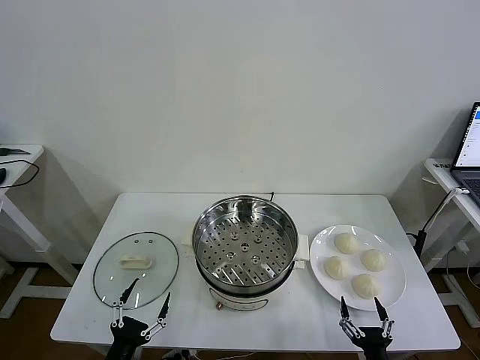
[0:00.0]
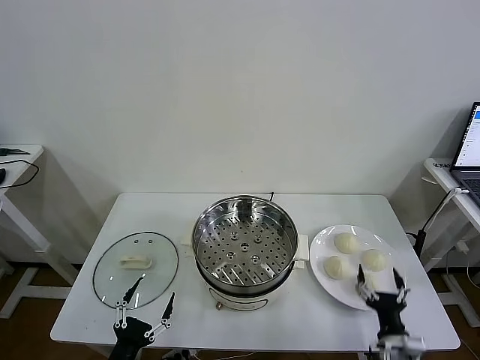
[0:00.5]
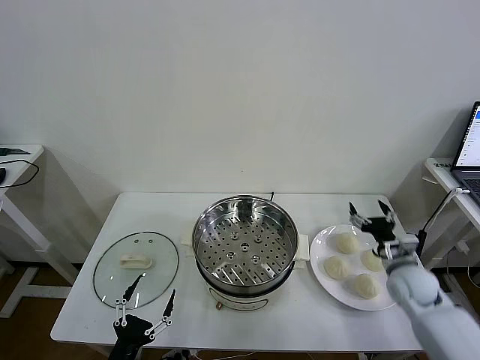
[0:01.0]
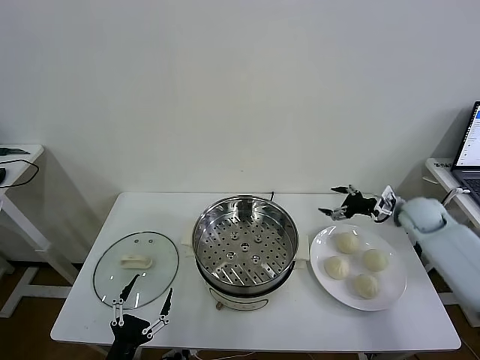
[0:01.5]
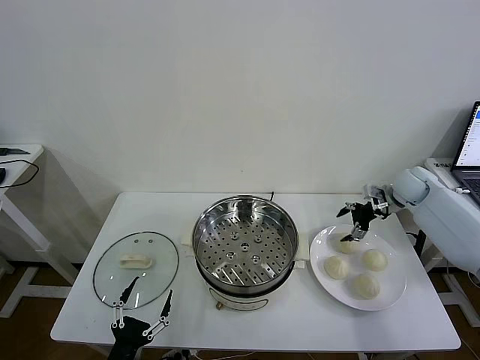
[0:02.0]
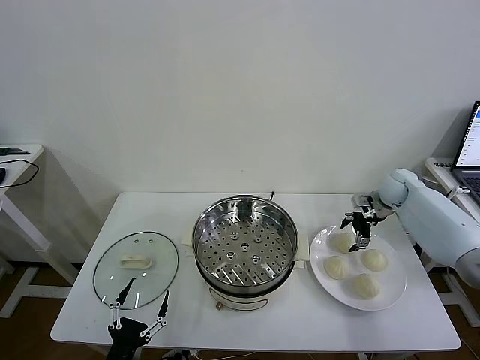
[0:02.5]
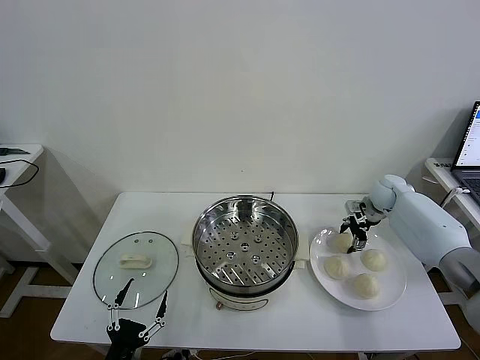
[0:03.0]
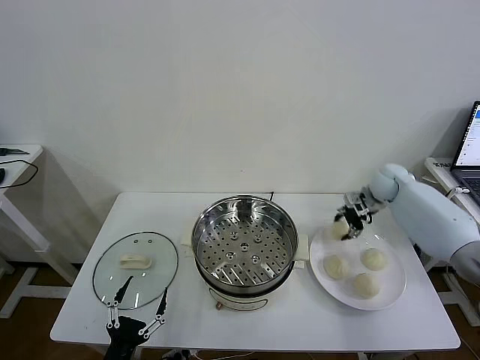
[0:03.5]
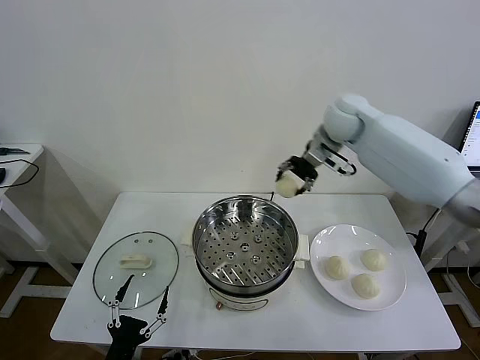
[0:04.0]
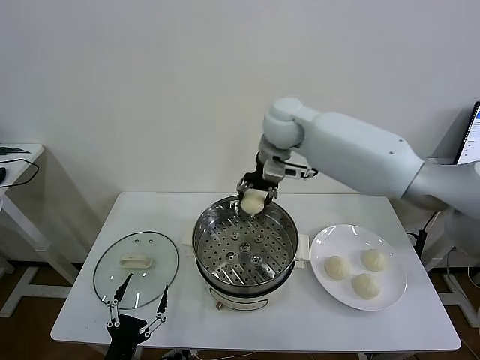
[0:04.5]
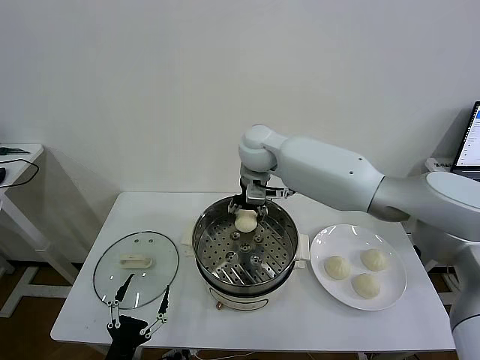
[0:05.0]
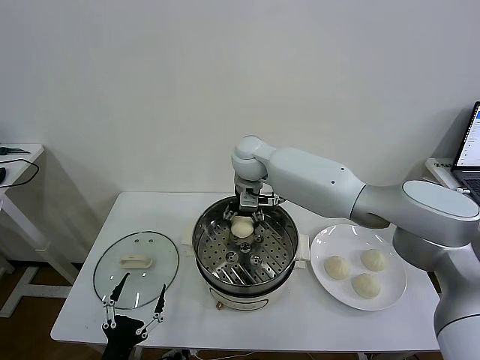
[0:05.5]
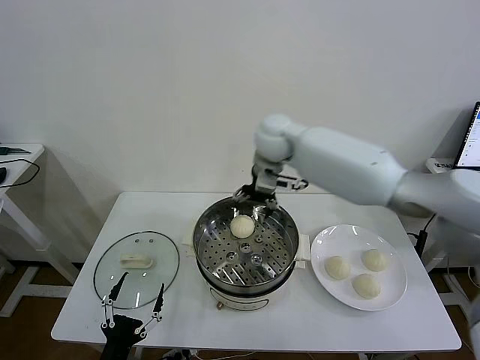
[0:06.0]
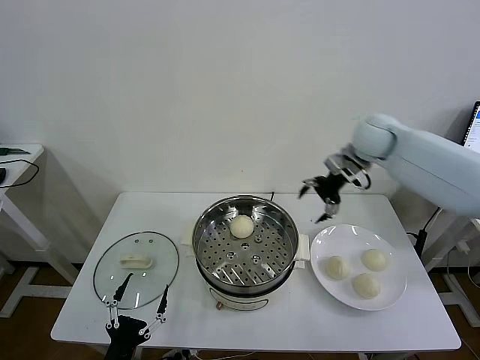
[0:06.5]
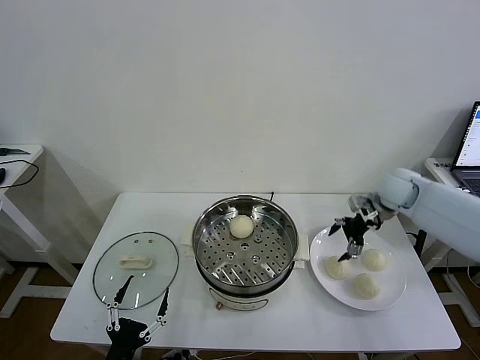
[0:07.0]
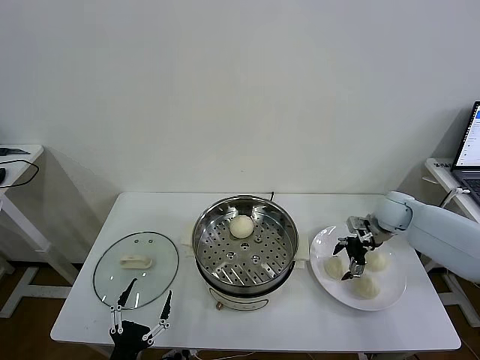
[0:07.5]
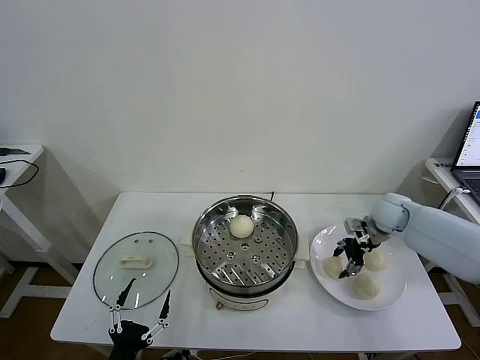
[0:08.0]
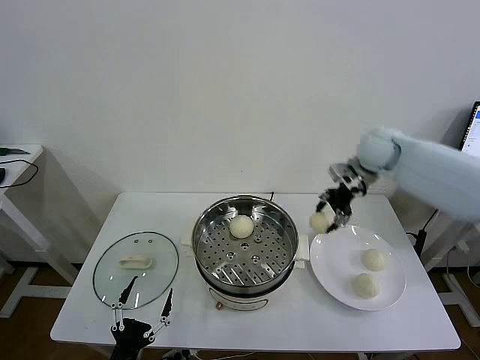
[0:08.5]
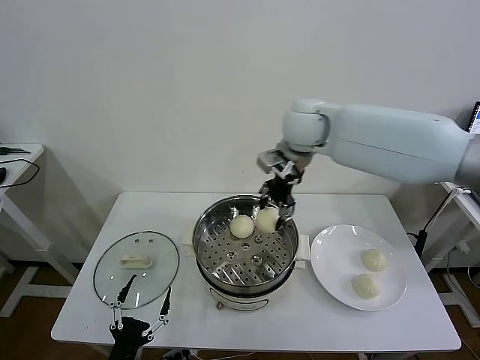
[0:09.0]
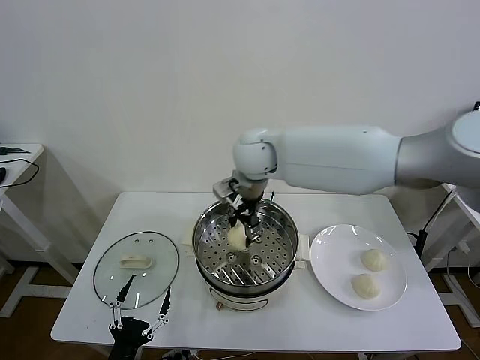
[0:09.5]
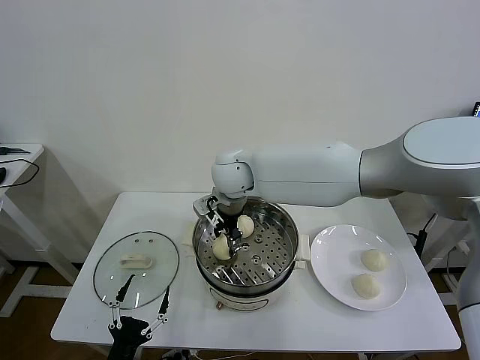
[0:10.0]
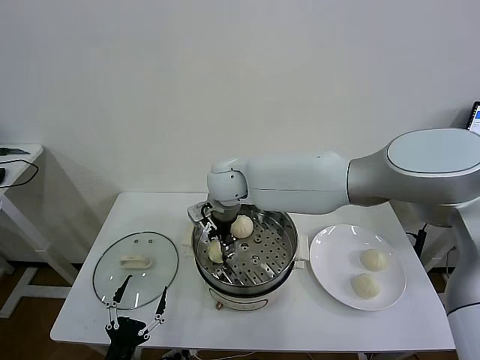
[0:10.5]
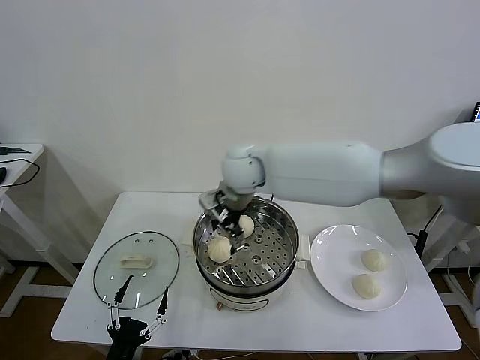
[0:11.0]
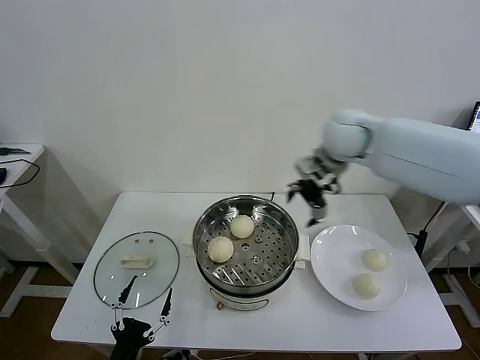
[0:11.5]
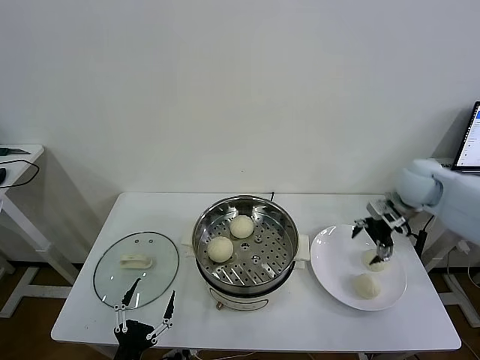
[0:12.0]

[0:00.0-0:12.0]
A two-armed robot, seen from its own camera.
Task of the whole recording: take steamed baozi put them in steamer then cover it.
Step, 0:00.0 to 0:03.0: Grasp the baozi in the plate with right gripper.
Step, 0:03.5 to 0:05.5: Place the baozi on the steamer with right gripper.
Step, 0:06.0 to 0:07.5: Grasp the baozi in the plate with right gripper.
Step, 0:08.0 to 0:10.5: Place the baozi on the steamer with right gripper.
0:02.0 to 0:04.0: The right gripper shifts some 35 cm to the left and upward, and closes up.
0:04.0 to 0:06.0: The right gripper travels to the left and back again, approximately 15 cm each way, and opens up.
0:06.0 to 0:08.0: The right gripper heads to the right and downward, covering some 30 cm, and closes.
0:08.0 to 0:10.0: The right gripper goes some 40 cm to the left.
0:10.0 to 0:12.0: The right gripper goes some 40 cm to the right, and opens its fingers.

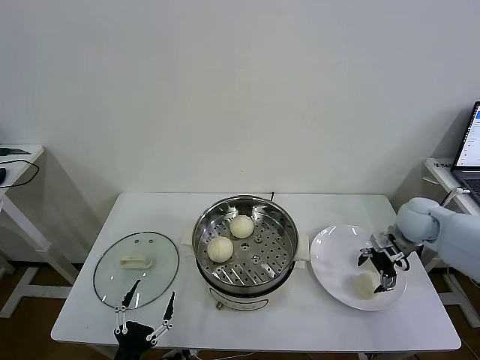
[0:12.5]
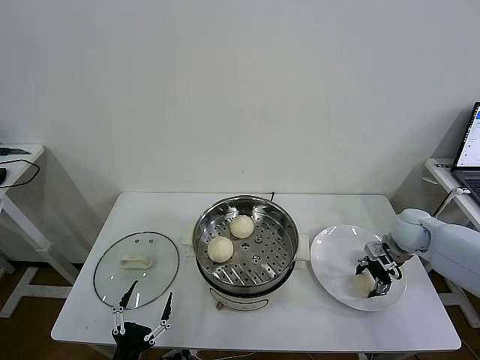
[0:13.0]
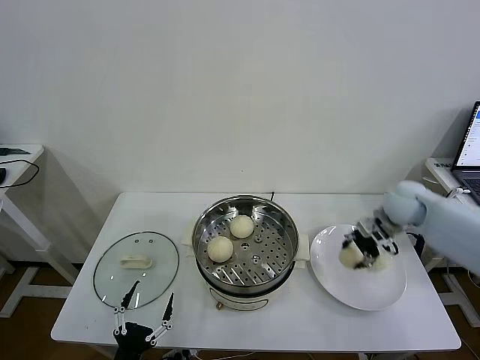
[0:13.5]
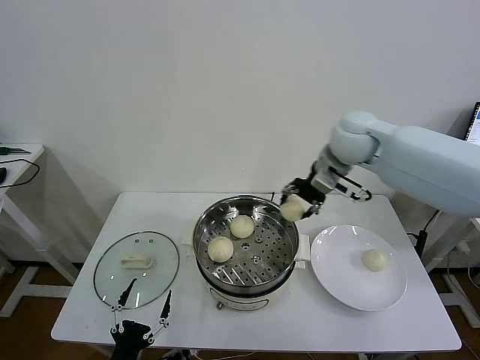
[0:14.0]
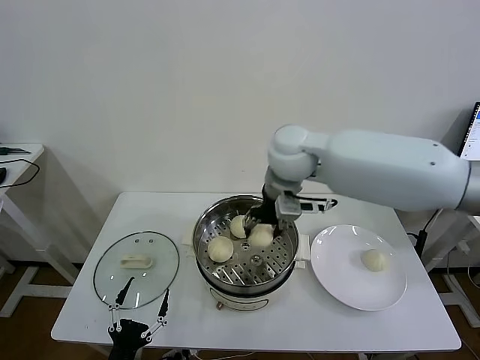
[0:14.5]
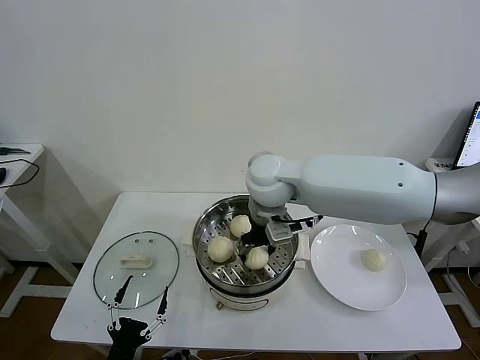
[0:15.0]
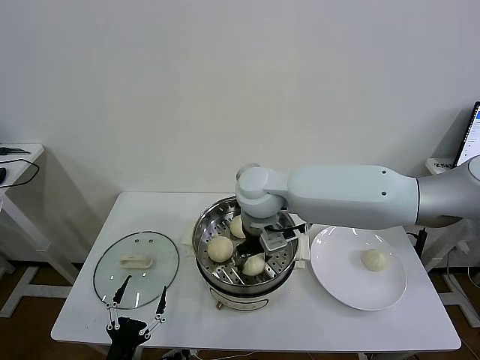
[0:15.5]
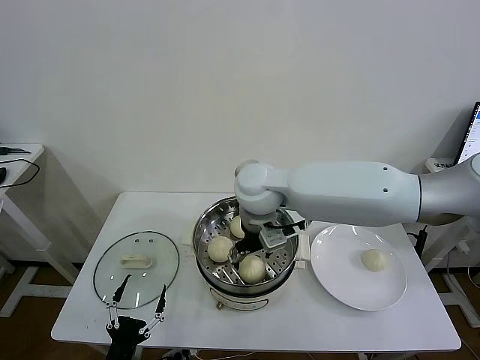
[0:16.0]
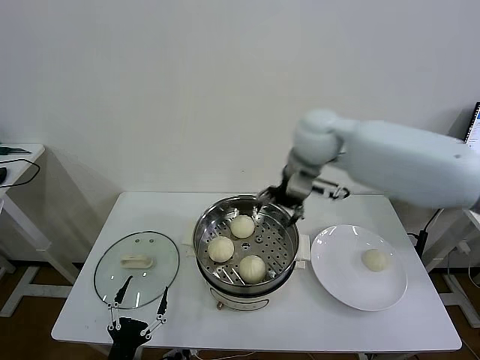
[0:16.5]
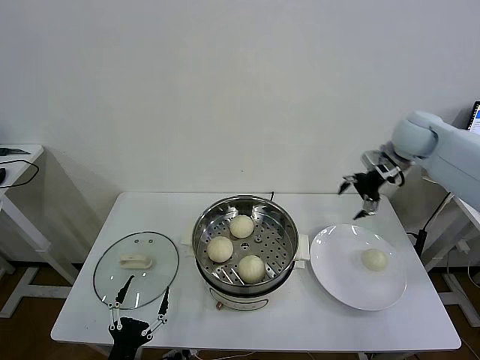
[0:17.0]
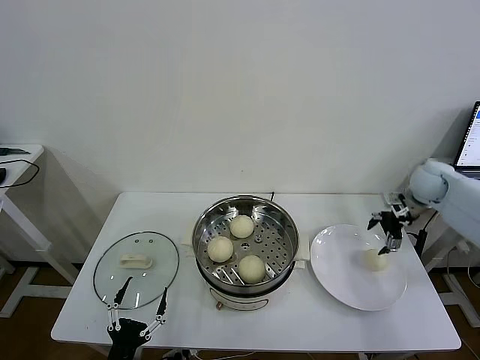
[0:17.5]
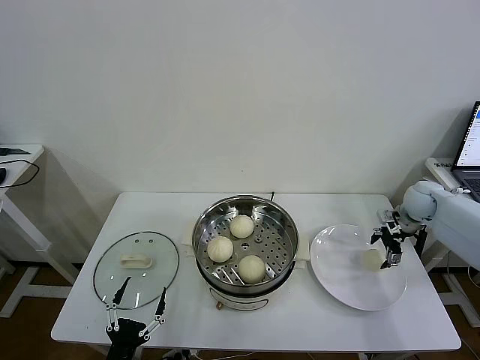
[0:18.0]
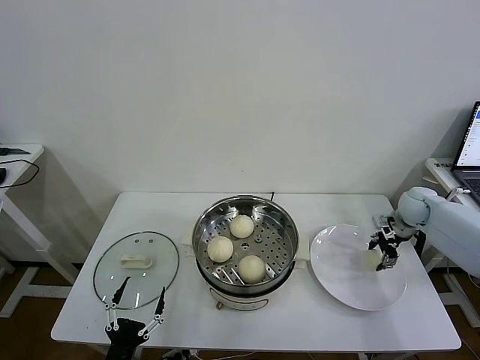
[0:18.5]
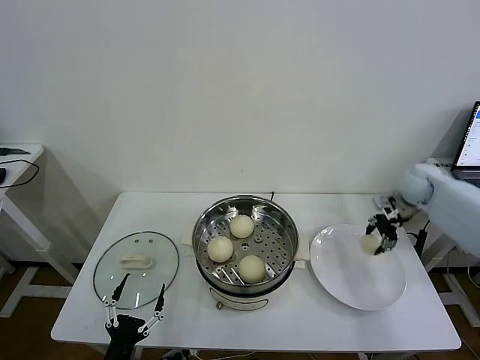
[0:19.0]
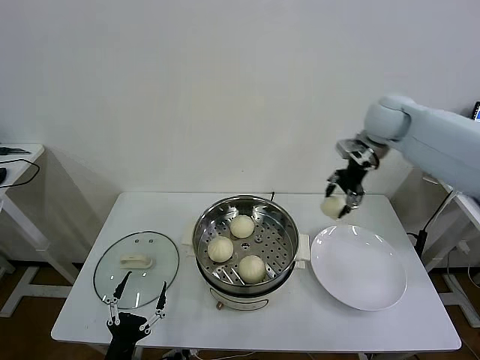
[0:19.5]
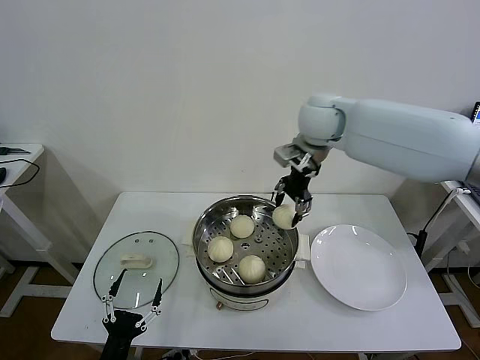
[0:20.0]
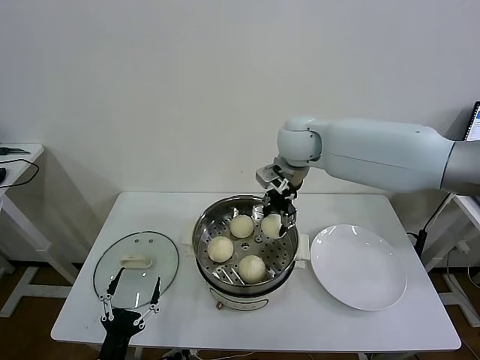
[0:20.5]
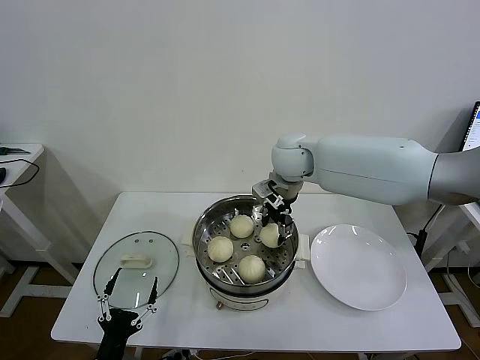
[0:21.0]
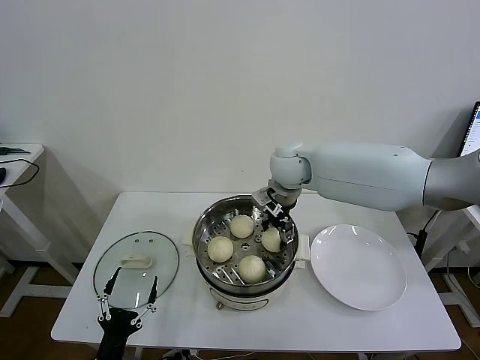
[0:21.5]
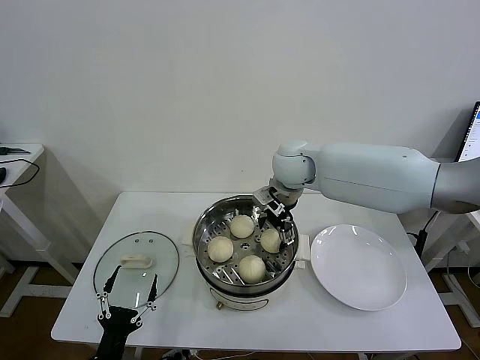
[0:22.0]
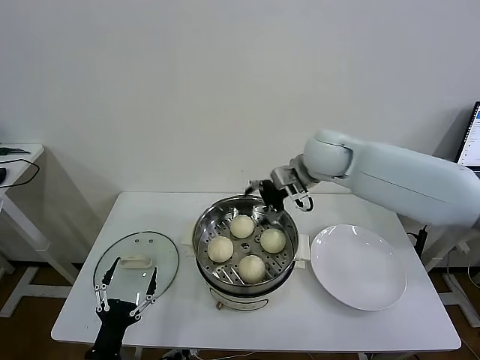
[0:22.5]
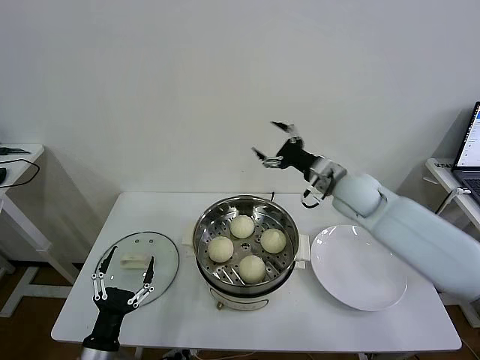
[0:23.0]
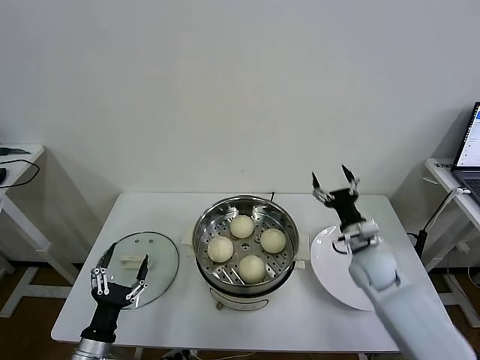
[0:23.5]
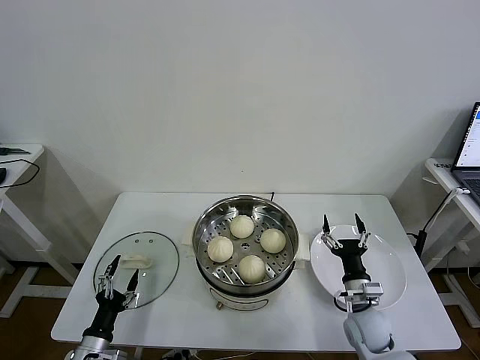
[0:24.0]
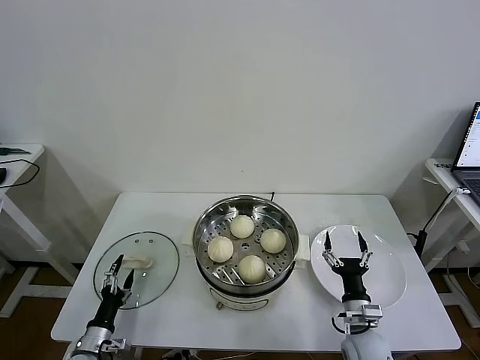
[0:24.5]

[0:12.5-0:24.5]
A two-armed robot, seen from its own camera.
Task of the whole recording: take steamed baozi put them in steamer then cover it.
Step, 0:13.5 to 0:15.5: Place the baozi on the steamer with right gripper.
Step, 0:16.0 to 0:18.5: Grasp the baozi in the plate with right gripper.
Step, 0:19.0 to 0:21.5: Place the baozi on the steamer with right gripper.
0:12.5 to 0:14.5: The right gripper goes roughly 40 cm to the left and upward, and closes up.
0:14.5 to 0:16.5: The right gripper heads to the right and forward, covering roughly 10 cm, and opens up.
0:16.5 to 0:18.5: The right gripper goes roughly 35 cm to the right and downward, and closes up.
0:18.5 to 0:20.5: The right gripper travels to the left and upward by roughly 40 cm.
0:20.5 to 0:22.5: The right gripper shifts roughly 5 cm to the right, and opens up.
0:22.5 to 0:24.5: The left gripper is displaced downward, forward and to the left by about 15 cm. Meanwhile the right gripper goes about 40 cm downward and backward.

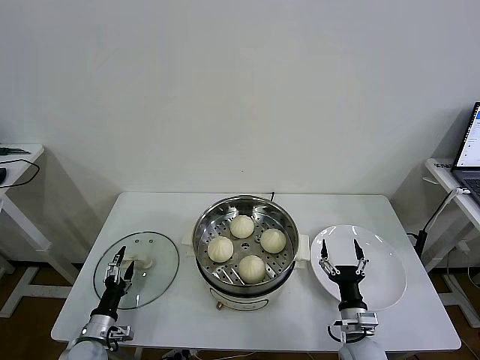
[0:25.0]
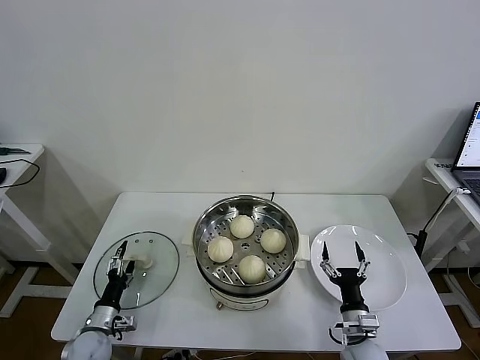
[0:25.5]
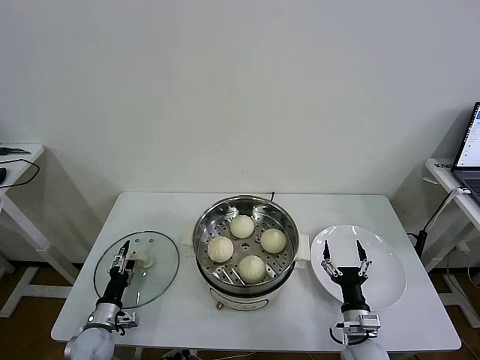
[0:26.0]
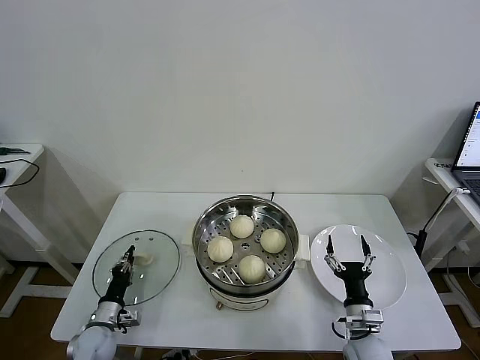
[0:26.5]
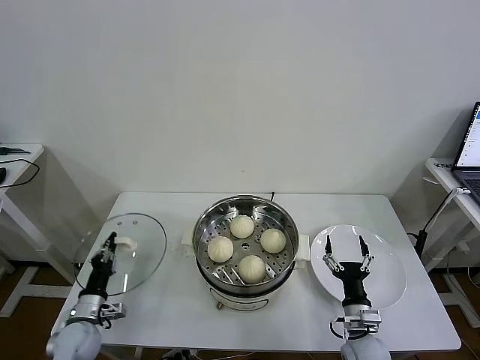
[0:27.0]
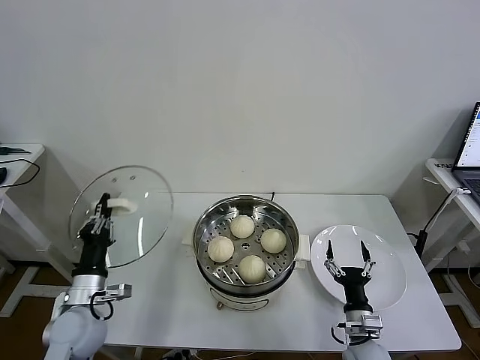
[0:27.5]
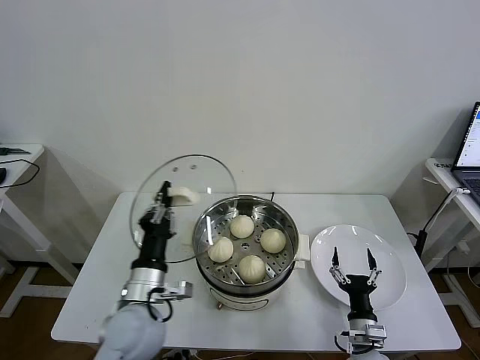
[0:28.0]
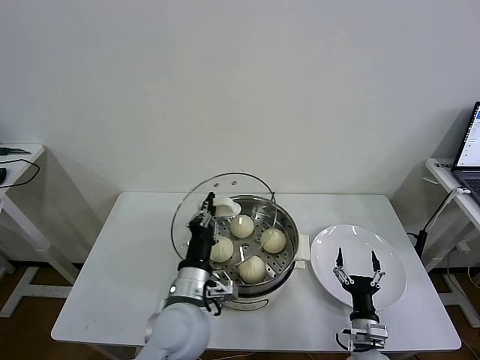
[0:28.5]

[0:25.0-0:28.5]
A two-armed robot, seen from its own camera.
Task of the whole recording: take steamed baozi put them in steamer then cover it.
0:25.0 to 0:27.0: The left gripper changes place by some 5 cm, and closes up.
0:27.0 to 0:28.5: The left gripper moves to the right and upward, about 30 cm.
